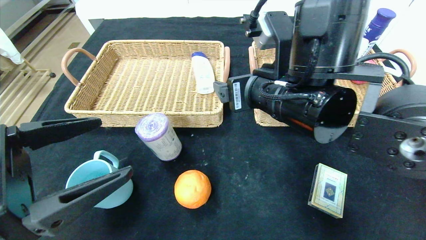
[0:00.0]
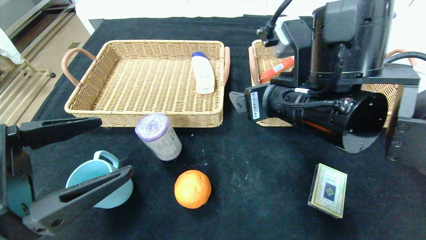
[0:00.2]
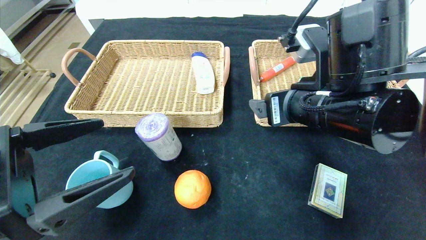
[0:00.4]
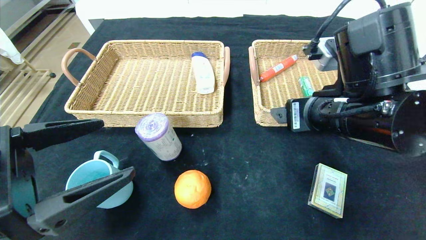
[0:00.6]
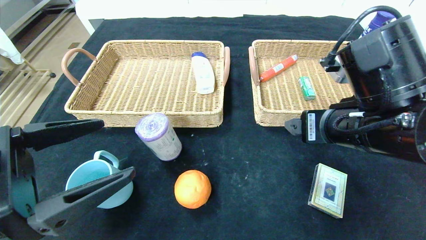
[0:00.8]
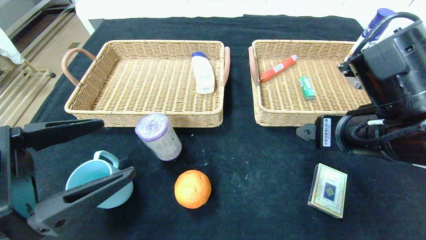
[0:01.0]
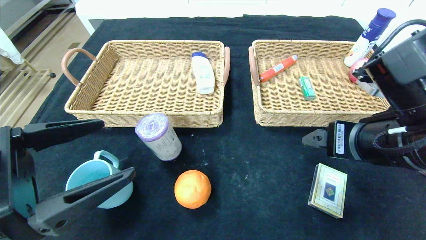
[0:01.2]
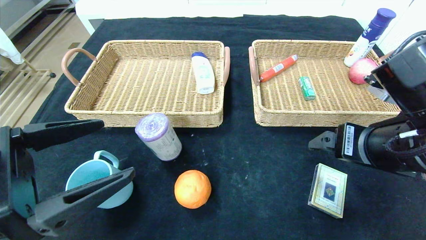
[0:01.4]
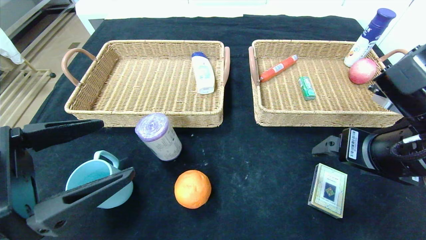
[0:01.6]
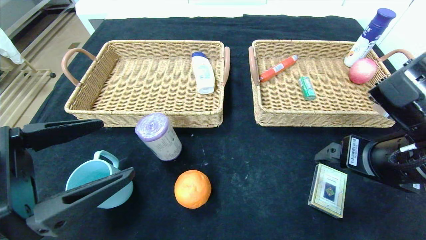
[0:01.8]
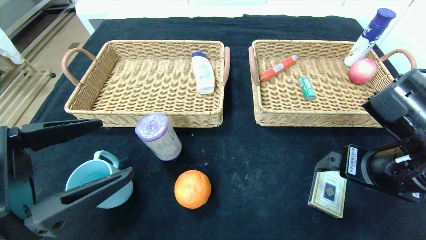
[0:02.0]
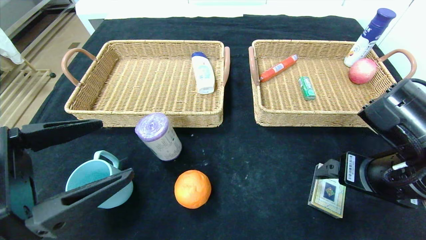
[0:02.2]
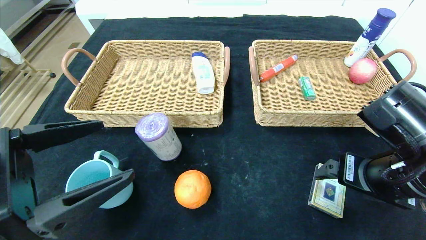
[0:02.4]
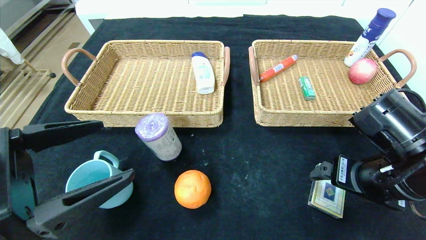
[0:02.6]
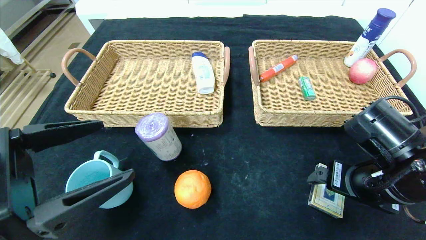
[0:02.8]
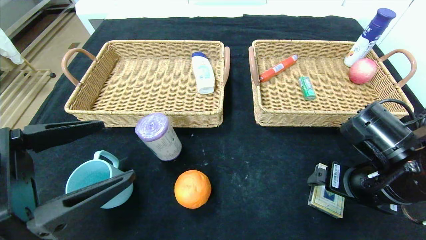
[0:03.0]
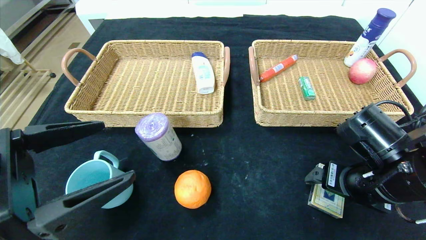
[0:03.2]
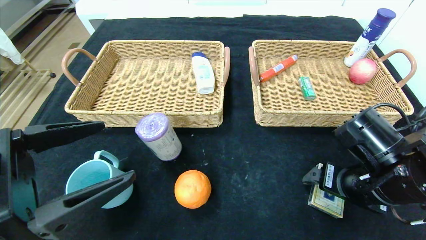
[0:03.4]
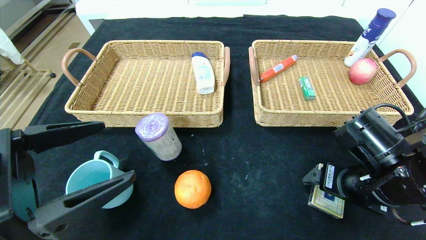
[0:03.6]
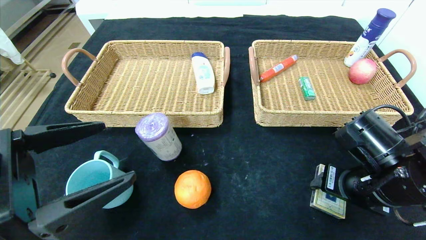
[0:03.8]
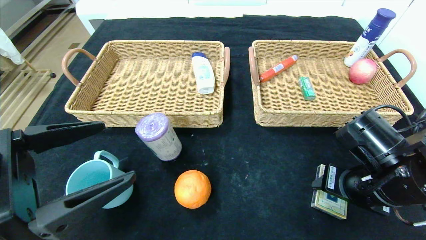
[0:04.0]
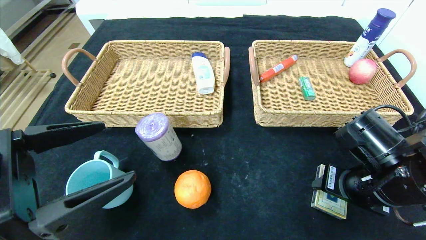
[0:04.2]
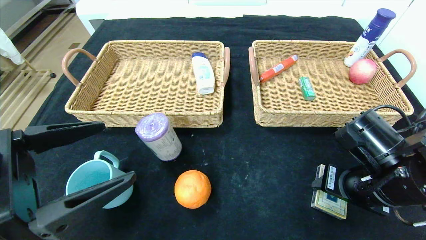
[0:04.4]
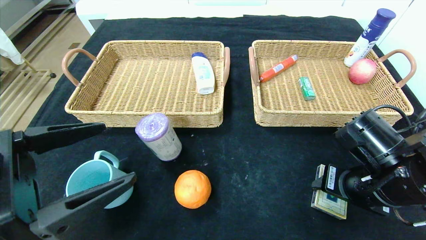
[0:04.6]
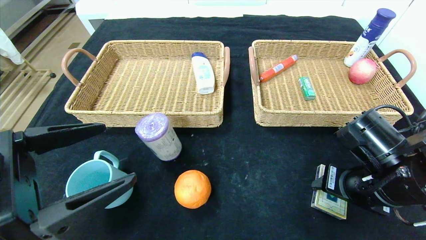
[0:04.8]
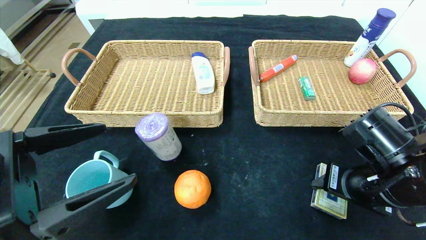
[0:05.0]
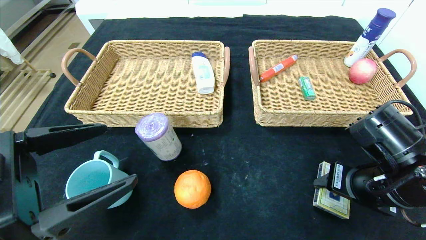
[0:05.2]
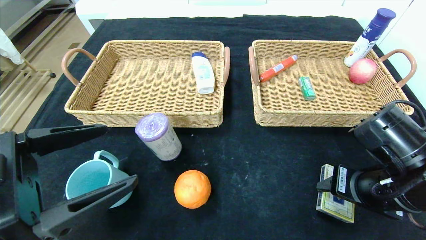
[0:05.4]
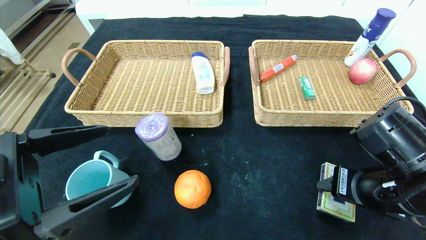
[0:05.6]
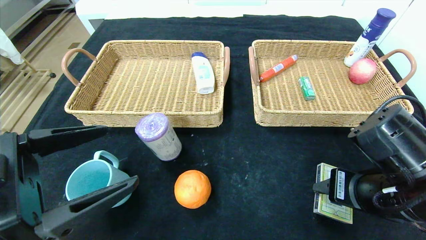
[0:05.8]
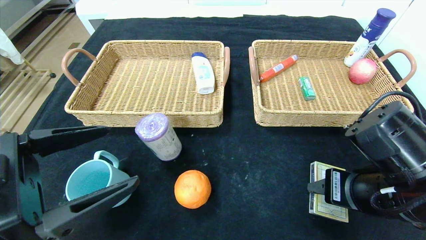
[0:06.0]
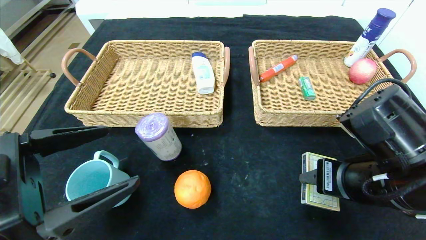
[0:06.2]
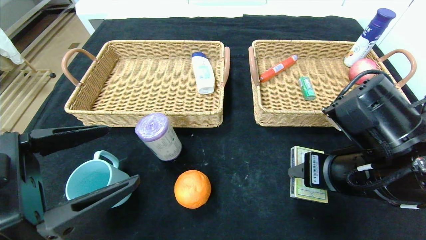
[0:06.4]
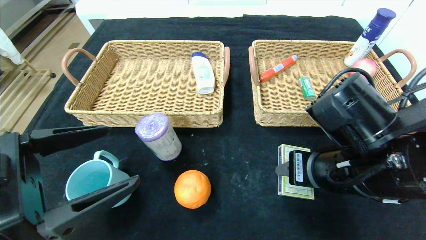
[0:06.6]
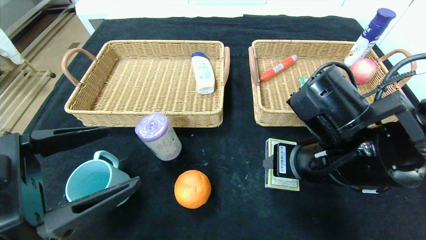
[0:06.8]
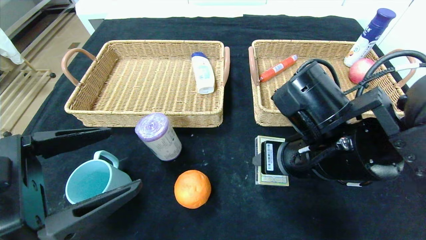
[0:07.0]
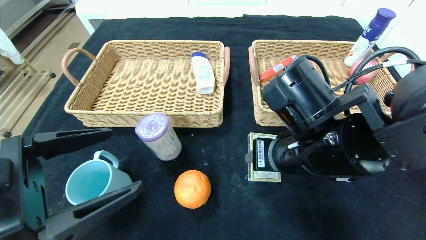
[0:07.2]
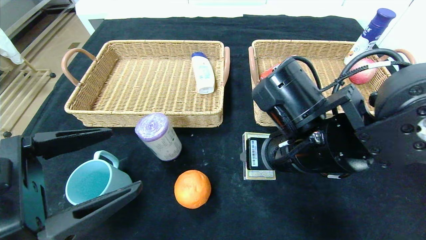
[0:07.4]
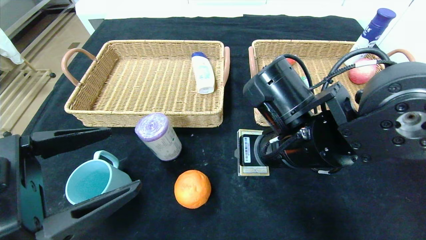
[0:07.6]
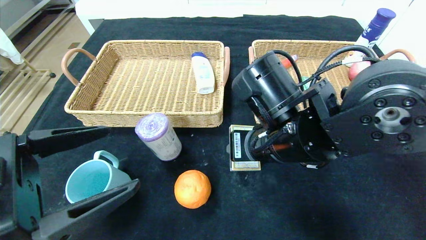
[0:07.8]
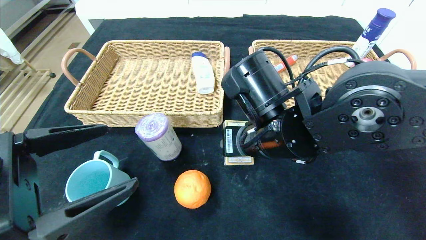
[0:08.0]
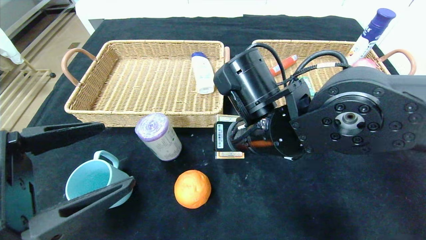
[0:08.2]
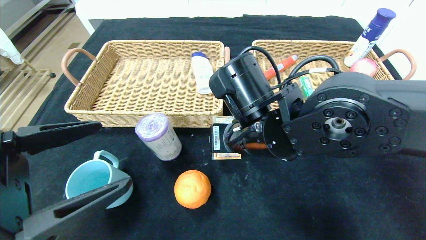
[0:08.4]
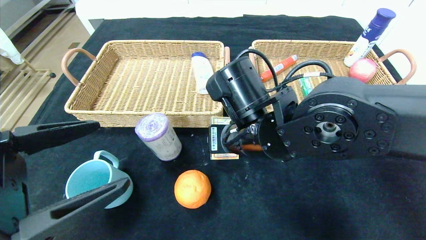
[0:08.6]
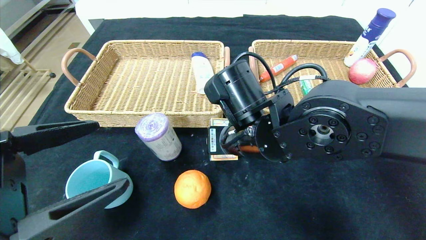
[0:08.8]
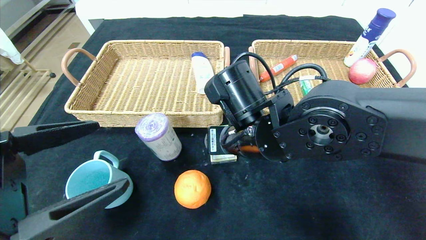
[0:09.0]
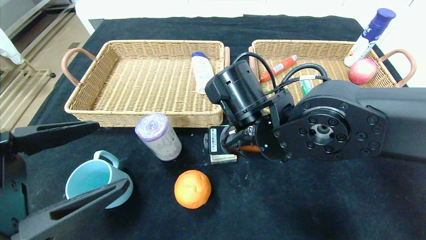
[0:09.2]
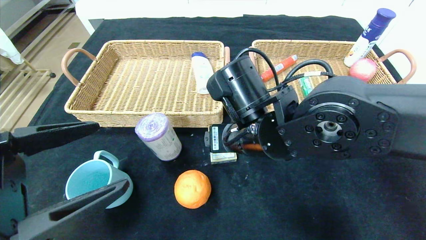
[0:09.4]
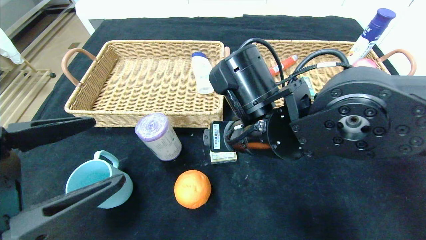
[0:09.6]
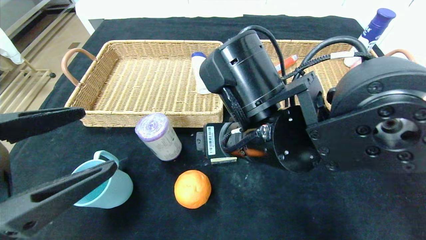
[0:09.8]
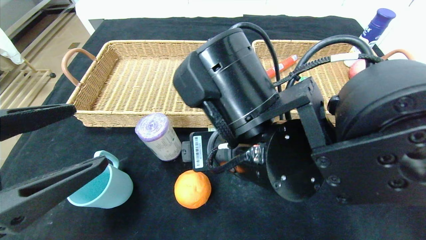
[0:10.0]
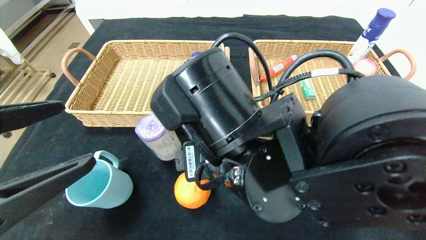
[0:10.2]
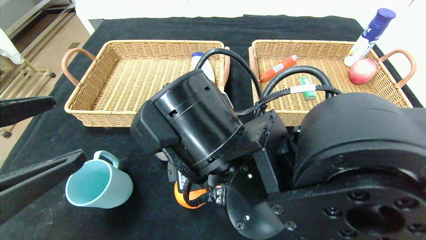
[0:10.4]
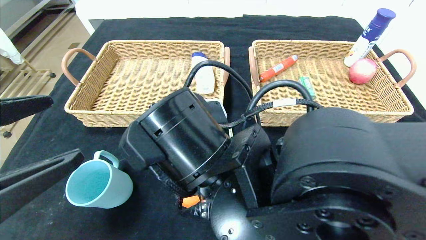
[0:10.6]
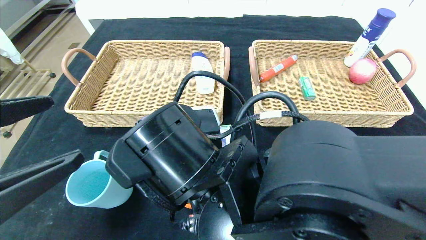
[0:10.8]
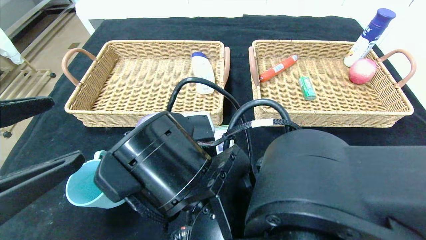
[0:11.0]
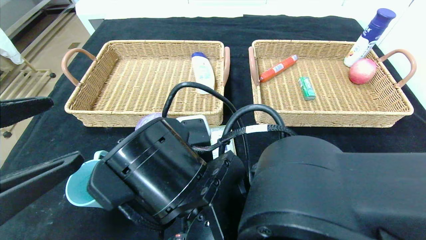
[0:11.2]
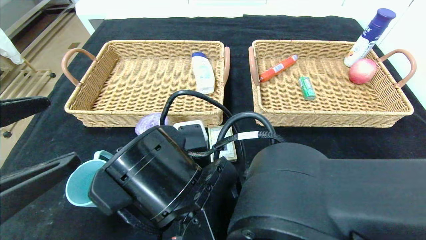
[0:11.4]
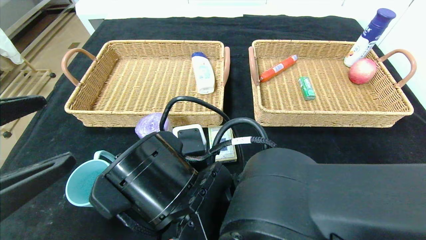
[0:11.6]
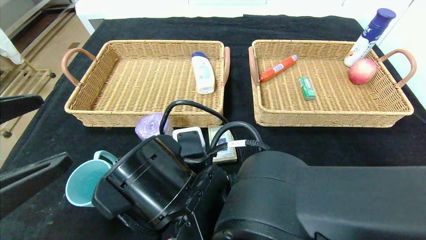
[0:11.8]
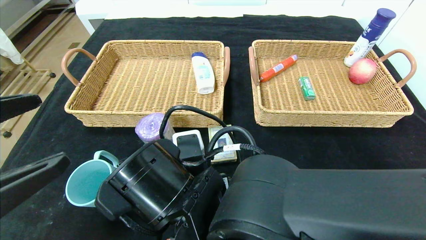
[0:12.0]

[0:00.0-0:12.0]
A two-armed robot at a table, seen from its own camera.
Step, 0:00.0 to 0:09.2: Place the playing cards in the center of the table.
0:00.0 to 0:01.6: The right gripper is displaced to the right and backward by roughly 15 cm.
0:01.6 to 0:03.0: The right gripper travels downward by some 5 cm.
0:03.0 to 0:04.4: The right gripper closes up.
0:04.4 to 0:06.0: The right gripper shifts by roughly 5 cm.
0:06.0 to 0:07.6: The right gripper shifts approximately 15 cm to the left and forward.
0:07.6 to 0:09.0: The right gripper ends up about 5 cm from where it was.
0:09.0 to 0:10.4: The right gripper travels backward by some 10 cm.
0:10.4 to 0:12.0: The right gripper is displaced downward by some 5 cm.

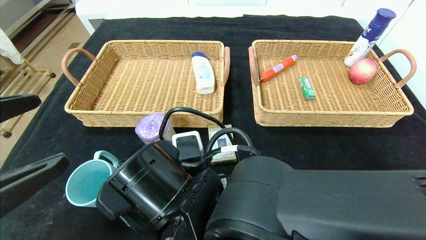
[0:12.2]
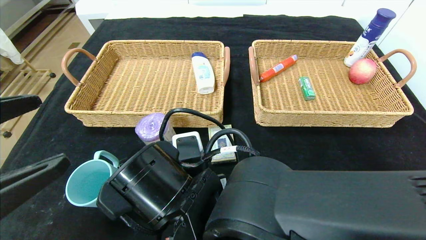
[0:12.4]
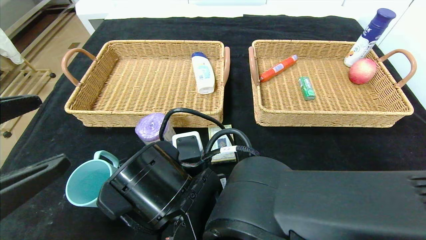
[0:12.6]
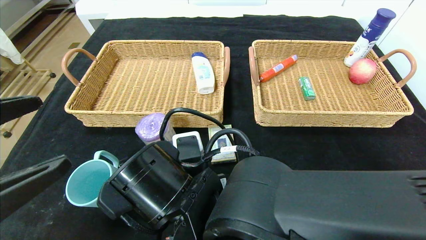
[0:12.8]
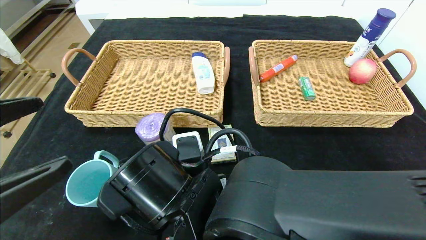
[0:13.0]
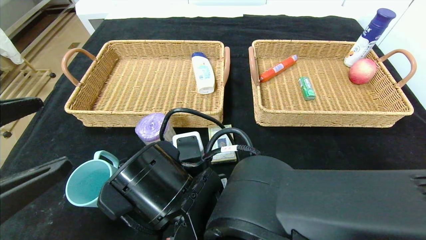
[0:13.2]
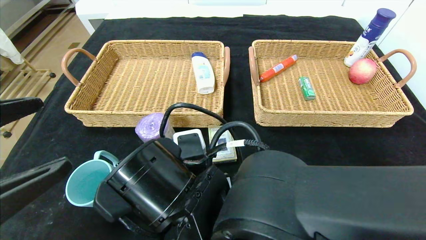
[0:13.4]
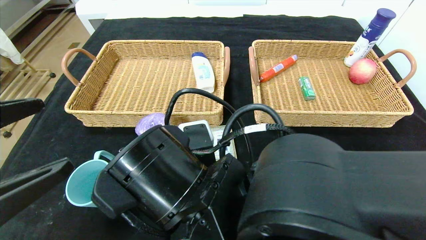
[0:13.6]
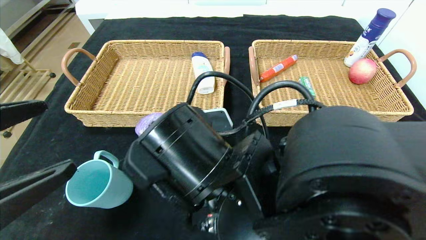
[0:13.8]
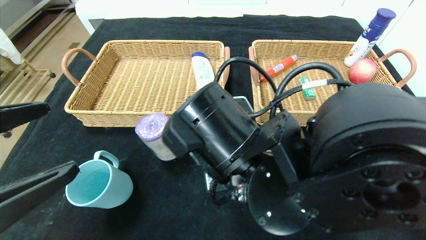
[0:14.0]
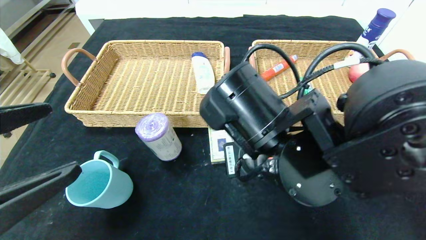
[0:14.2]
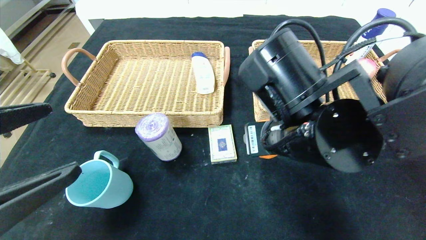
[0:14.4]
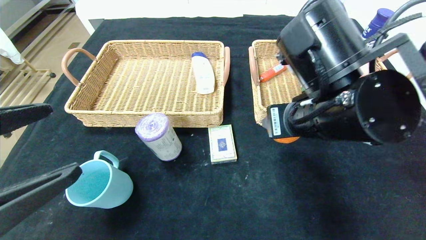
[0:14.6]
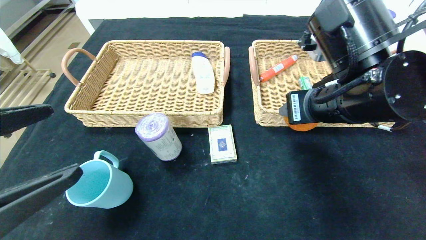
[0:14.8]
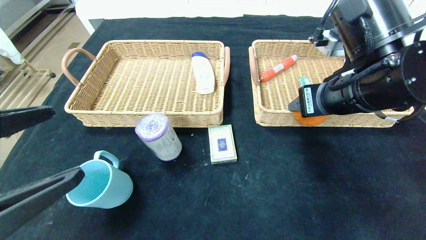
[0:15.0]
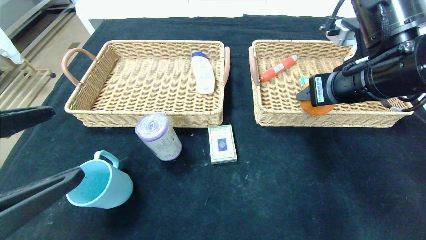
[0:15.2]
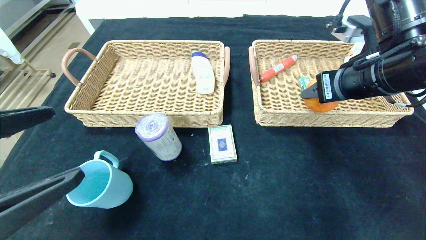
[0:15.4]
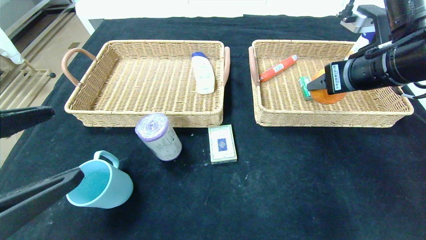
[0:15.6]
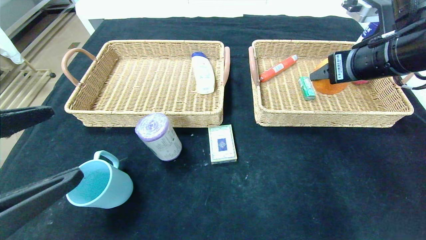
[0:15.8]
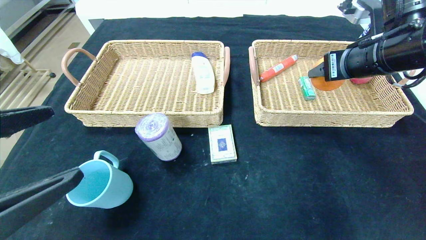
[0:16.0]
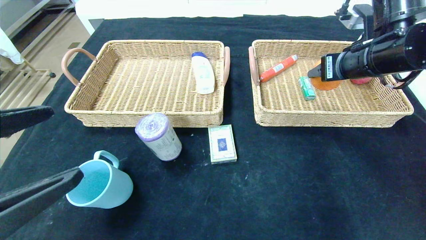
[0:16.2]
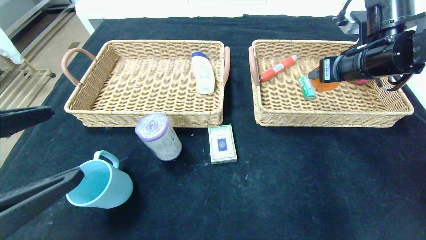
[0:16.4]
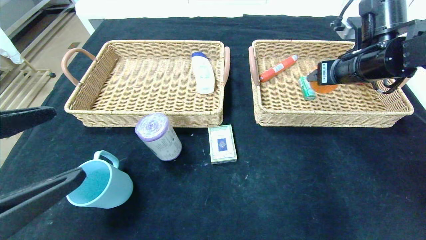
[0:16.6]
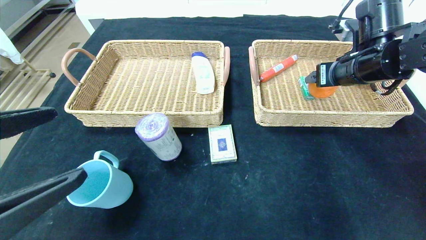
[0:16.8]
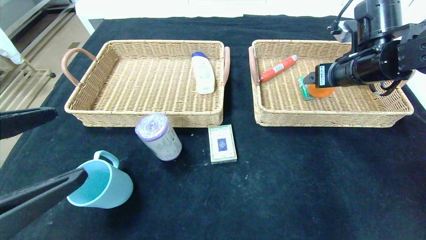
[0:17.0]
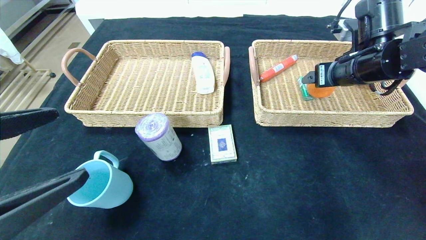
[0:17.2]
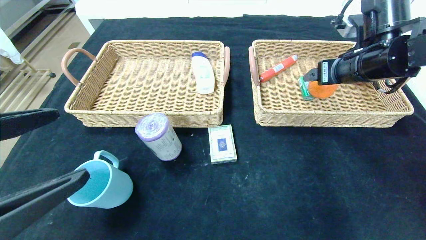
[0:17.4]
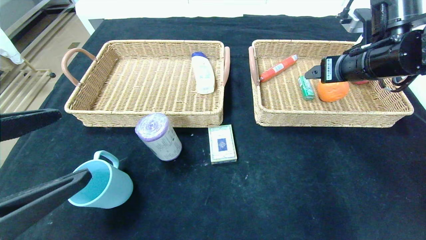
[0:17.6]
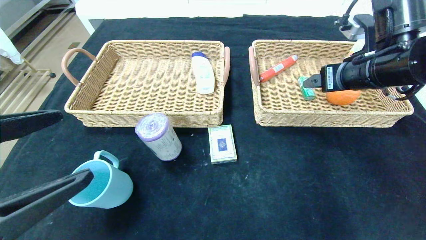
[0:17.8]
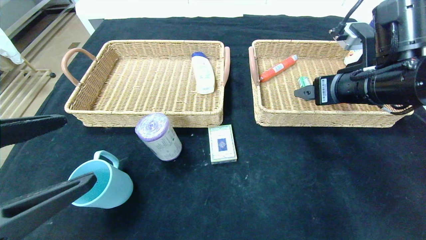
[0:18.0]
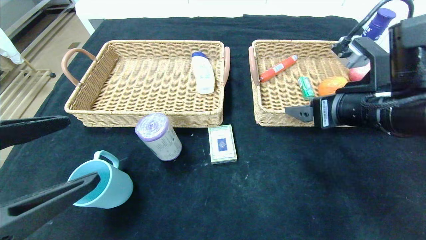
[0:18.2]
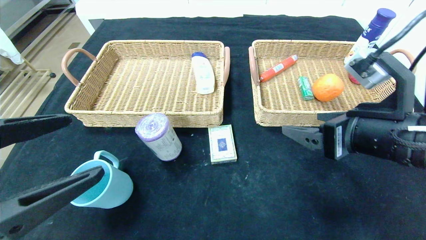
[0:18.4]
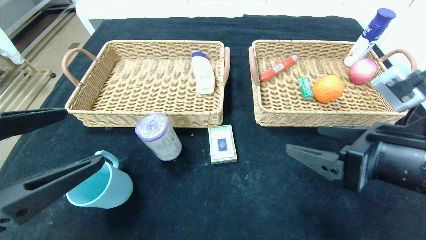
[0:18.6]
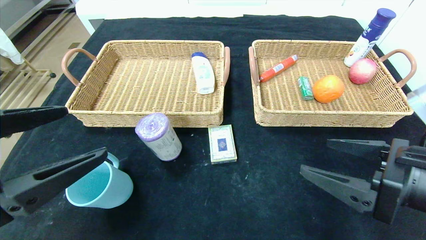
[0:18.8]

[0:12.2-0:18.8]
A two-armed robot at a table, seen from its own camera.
Step, 0:12.2 to 0:17.6: Grasp the orange and put it in the right basket.
0:12.2 to 0:13.8: The right gripper shifts by approximately 5 cm, and closes.
0:13.8 to 0:15.4: The right gripper travels to the right, upward and forward by about 25 cm.
0:15.4 to 0:17.2: The right gripper is displaced forward by roughly 10 cm.
0:17.2 to 0:18.8: The right gripper shifts about 20 cm backward.
